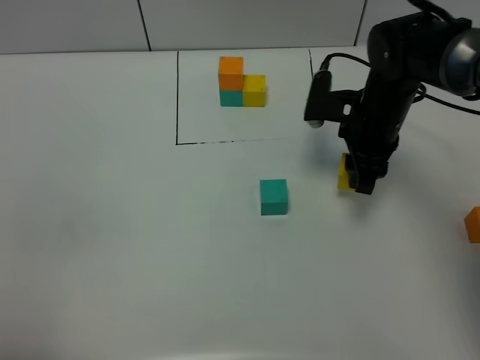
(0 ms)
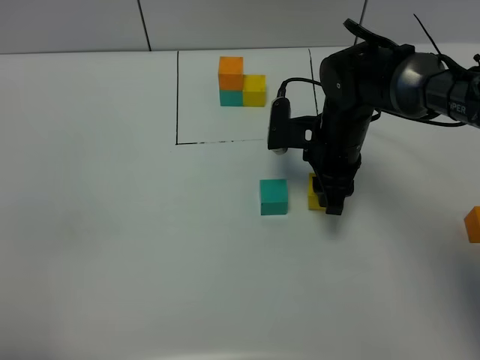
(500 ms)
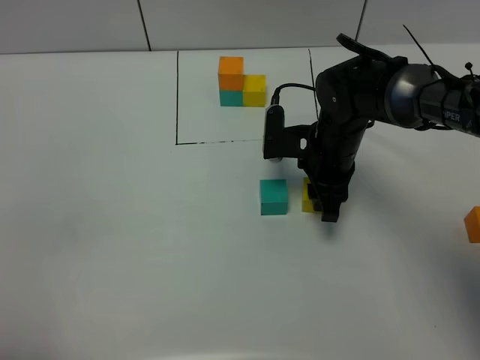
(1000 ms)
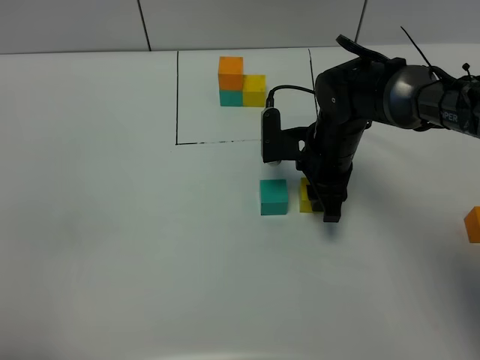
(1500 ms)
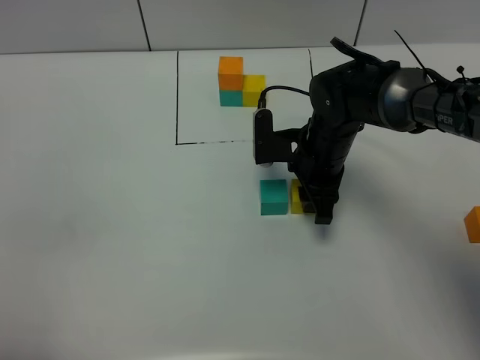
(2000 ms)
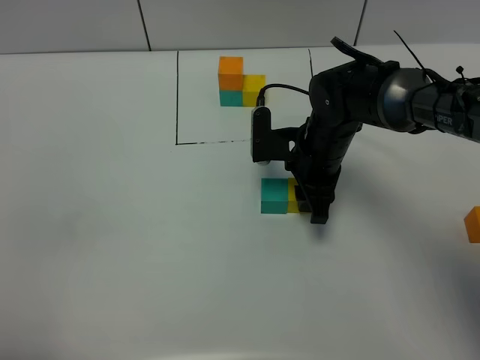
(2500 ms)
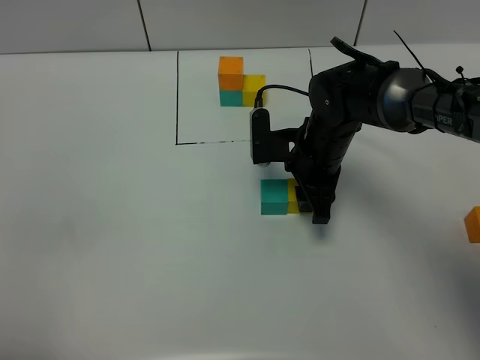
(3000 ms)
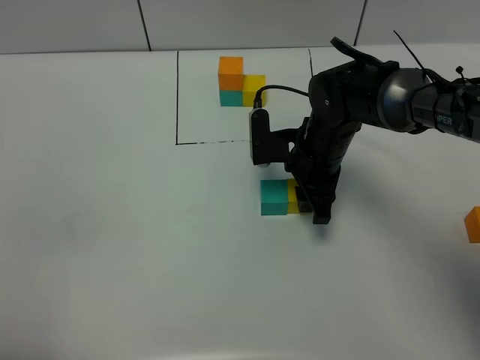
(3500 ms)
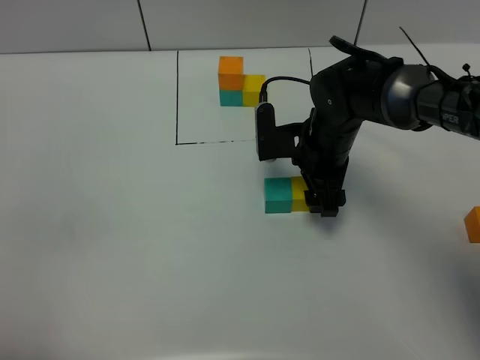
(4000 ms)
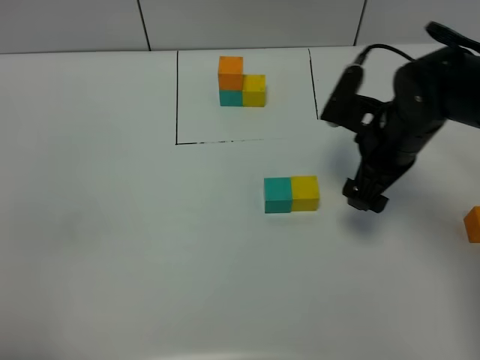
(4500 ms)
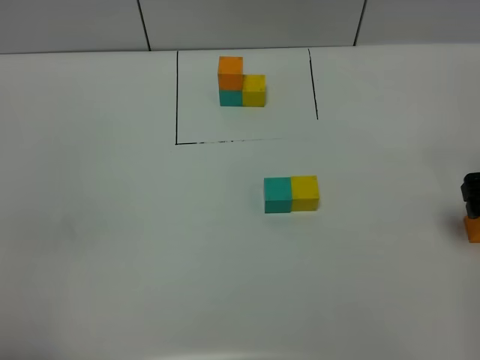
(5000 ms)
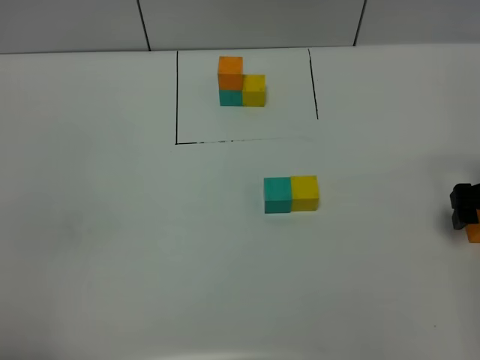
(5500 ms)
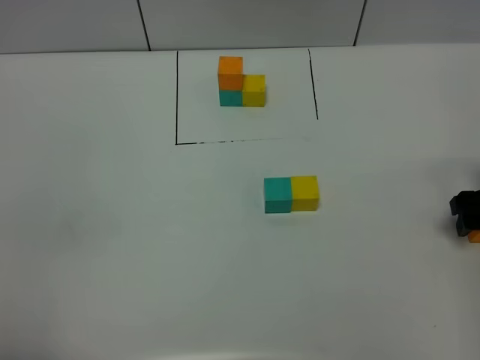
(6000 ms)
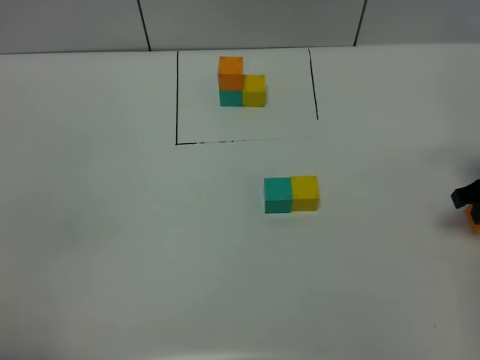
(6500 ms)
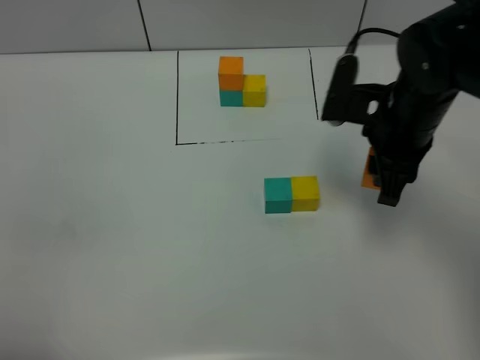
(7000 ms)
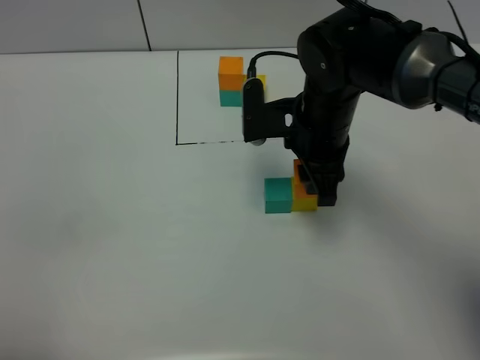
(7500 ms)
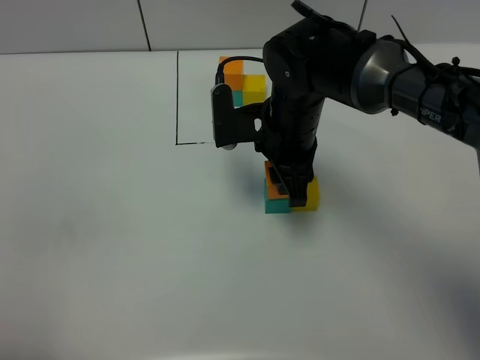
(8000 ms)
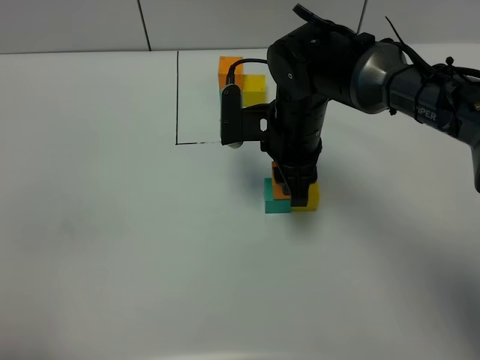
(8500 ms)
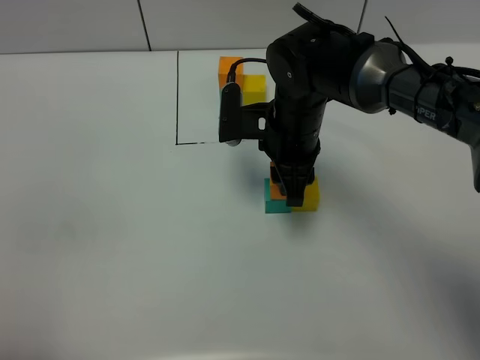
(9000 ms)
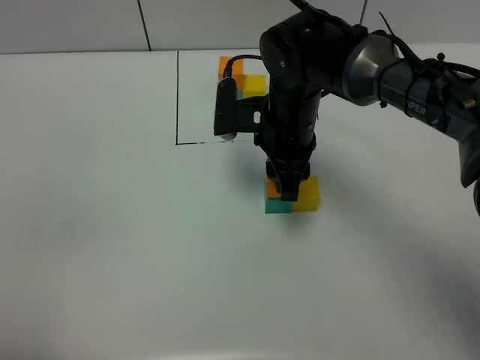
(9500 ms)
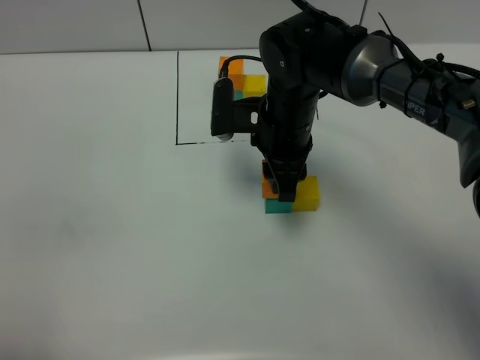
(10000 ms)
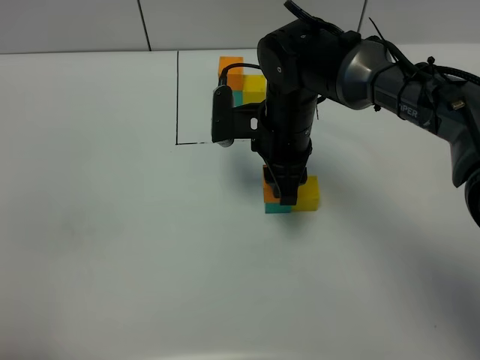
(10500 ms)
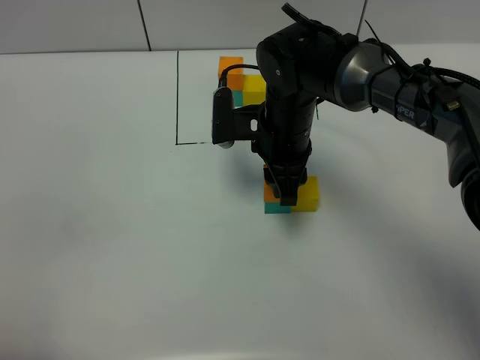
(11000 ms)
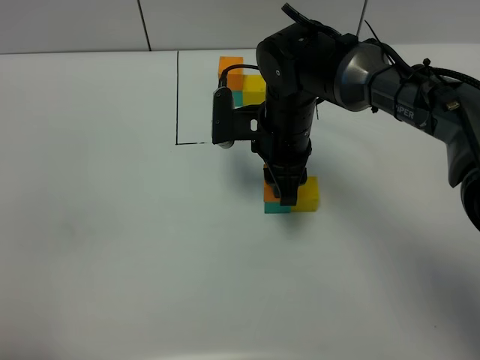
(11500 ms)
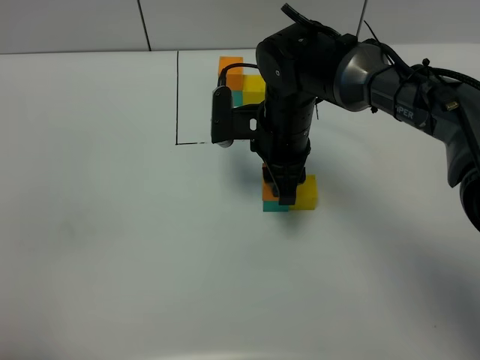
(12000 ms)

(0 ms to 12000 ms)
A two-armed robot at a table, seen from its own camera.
Task of the whole recording: According to the building block template in front, assemble the scattered blocks together.
Step, 0 ms - 4000 ms: Put the yellow build block on the right of the green build block.
0 ms - 2000 ms: The right gripper moves to the left, roughly 5 cm.
2000 ms - 4000 ms: The right gripper opens its fingers.
4000 ms - 6000 ms: The right gripper is displaced to the right by about 25 cm.
6000 ms - 8000 ms: The right gripper heads to the left, covering some 30 cm, and closes.
8000 ms - 12000 ms: The grippers move only a little.

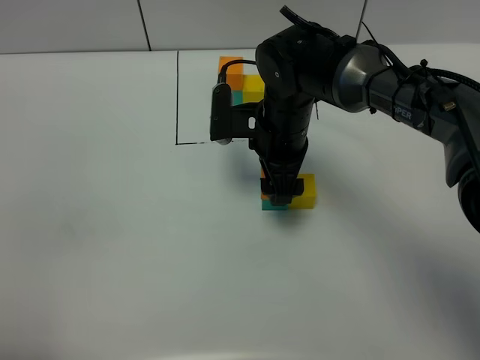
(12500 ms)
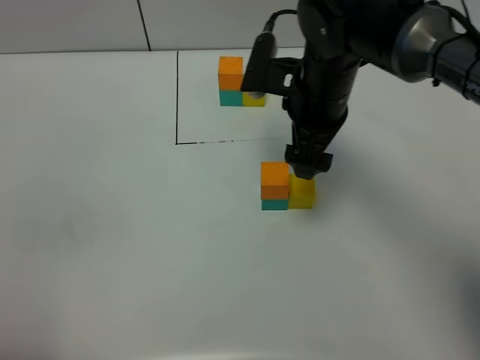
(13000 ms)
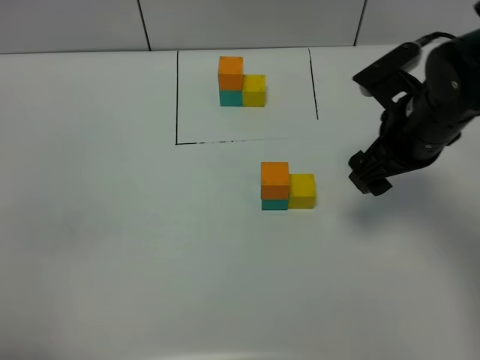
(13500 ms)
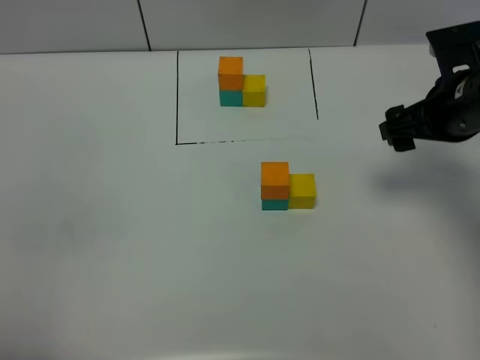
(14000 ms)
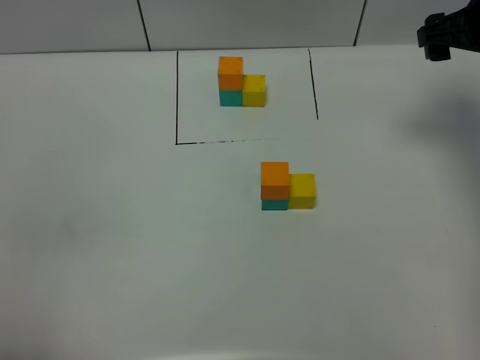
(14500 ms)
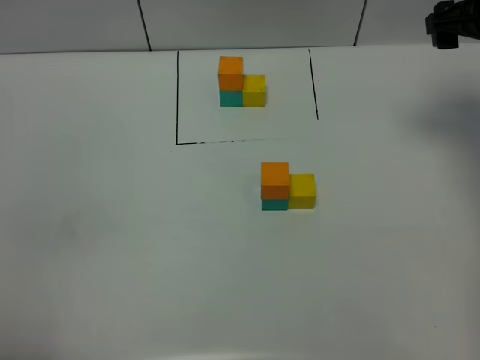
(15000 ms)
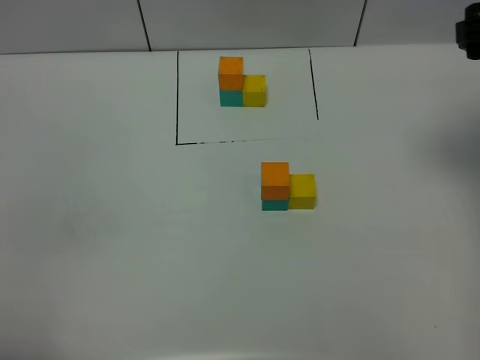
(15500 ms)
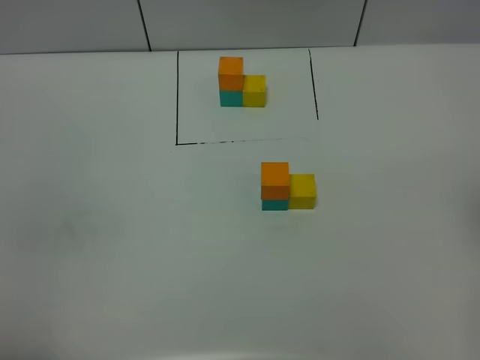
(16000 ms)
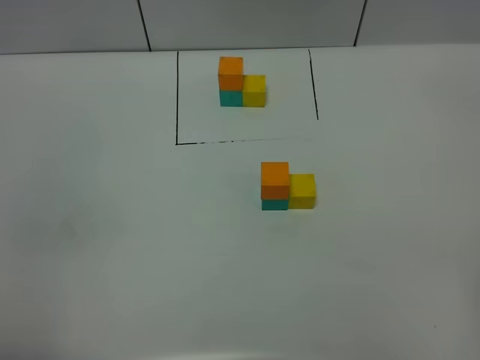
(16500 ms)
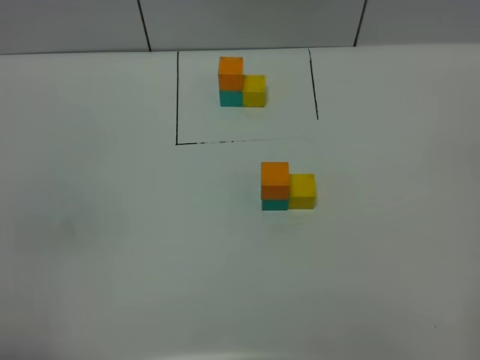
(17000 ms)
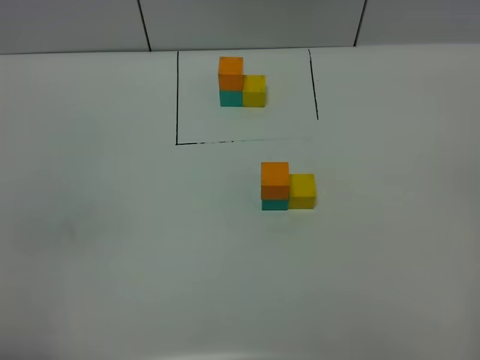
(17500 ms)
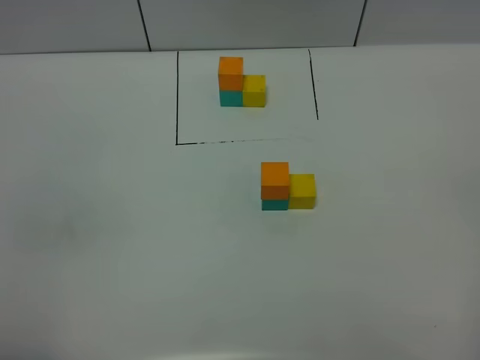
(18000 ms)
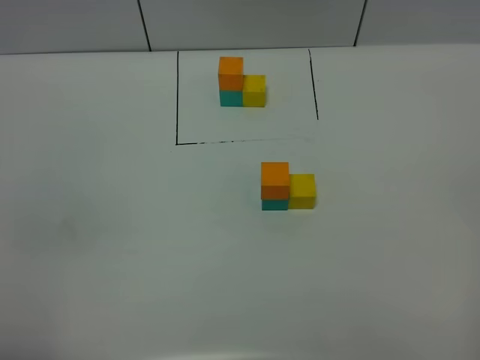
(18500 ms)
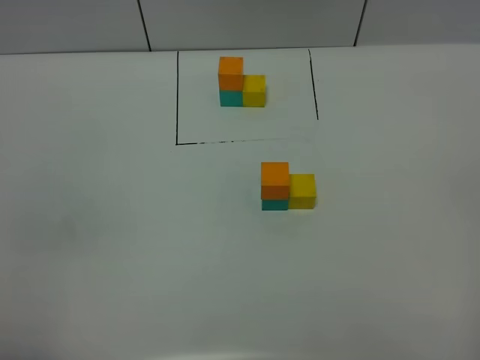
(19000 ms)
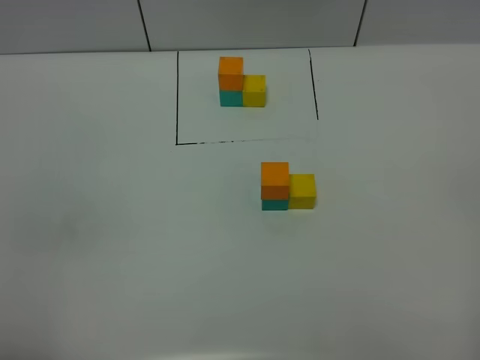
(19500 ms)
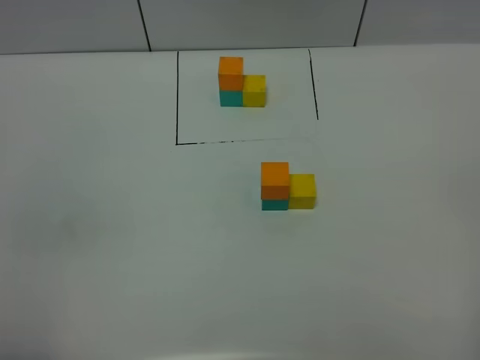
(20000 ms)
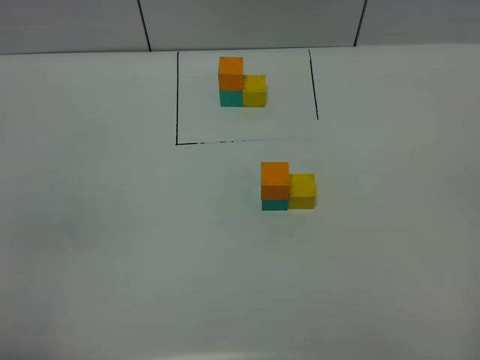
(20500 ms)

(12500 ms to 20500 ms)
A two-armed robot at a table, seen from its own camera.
Task of the whole recording: According to the building block template in front, assemble the scattered blocks together.
12500 ms - 14500 ms: The right gripper heads to the right and upward, covering about 25 cm.
14500 ms - 16500 ms: The right gripper travels backward by approximately 35 cm.
18500 ms - 20500 ms: Neither gripper changes place.

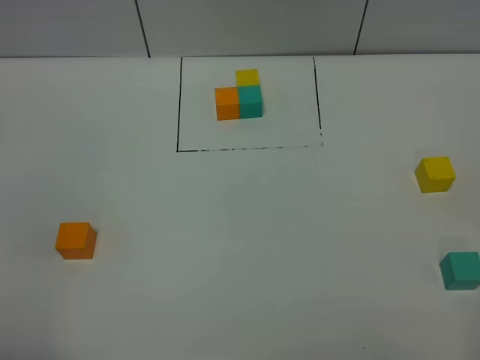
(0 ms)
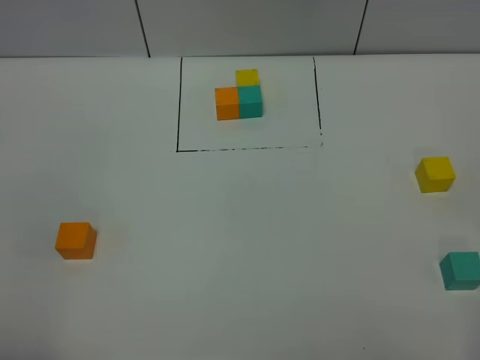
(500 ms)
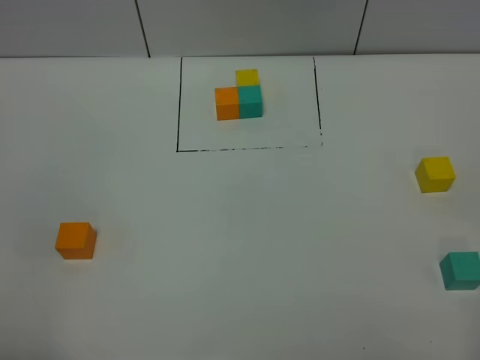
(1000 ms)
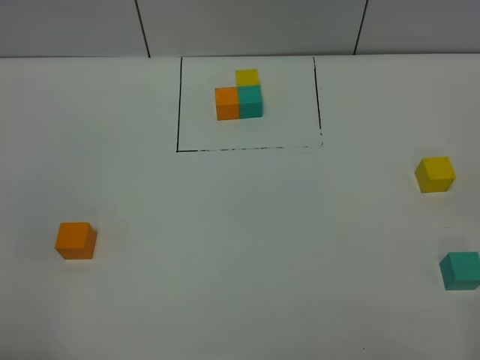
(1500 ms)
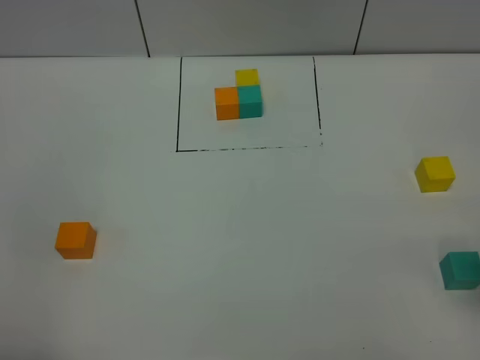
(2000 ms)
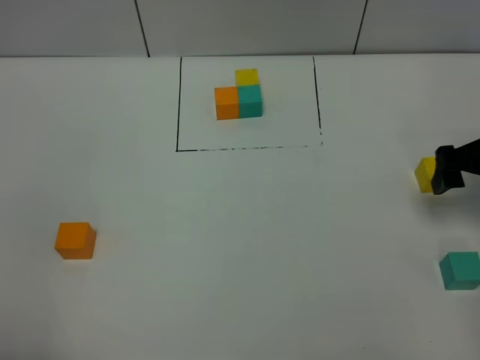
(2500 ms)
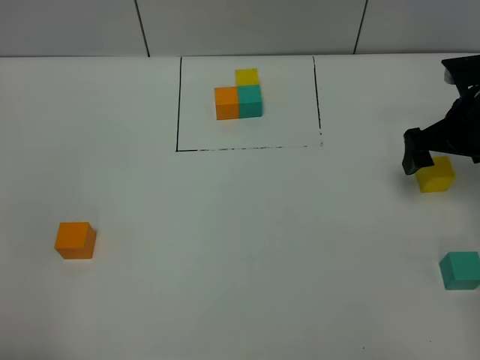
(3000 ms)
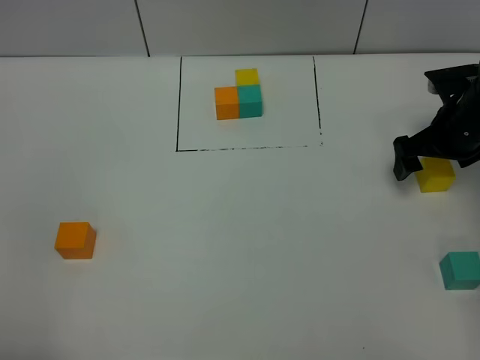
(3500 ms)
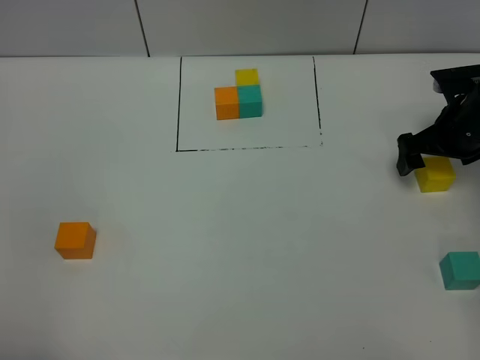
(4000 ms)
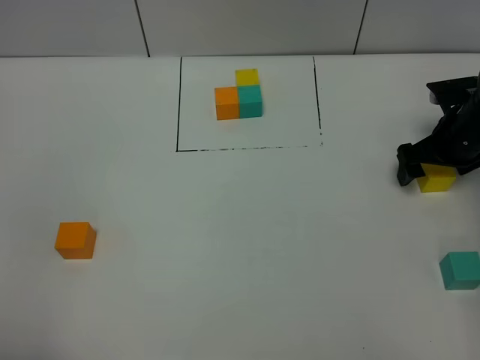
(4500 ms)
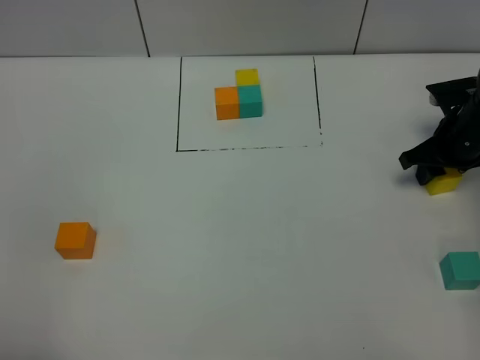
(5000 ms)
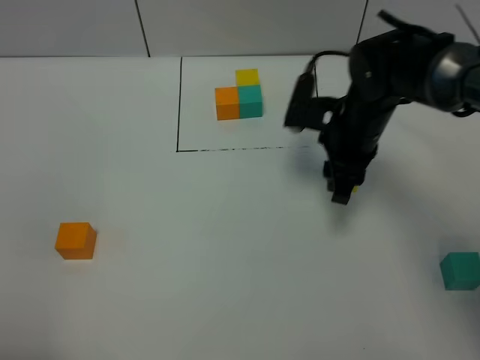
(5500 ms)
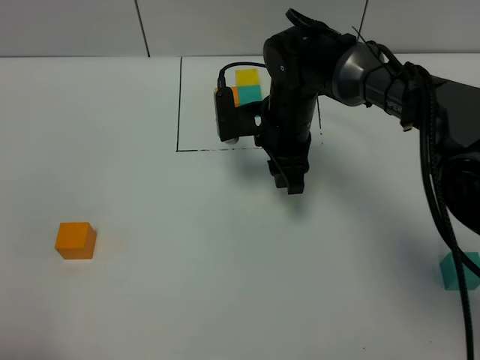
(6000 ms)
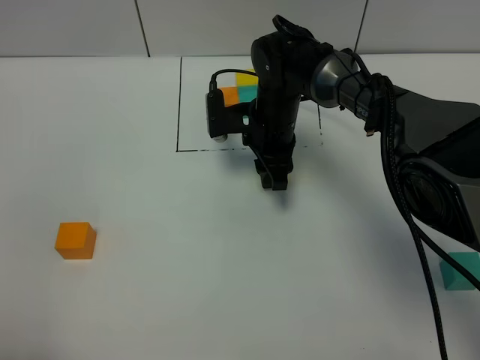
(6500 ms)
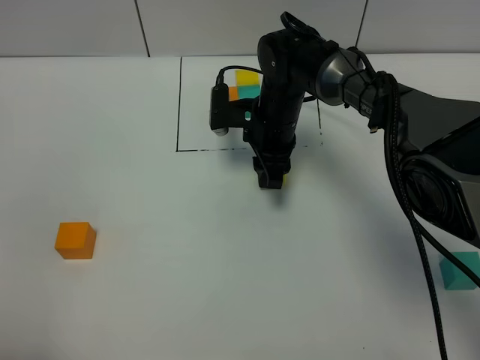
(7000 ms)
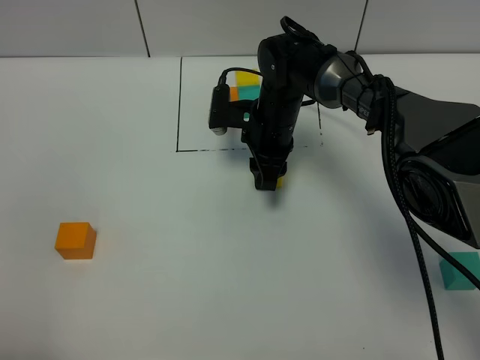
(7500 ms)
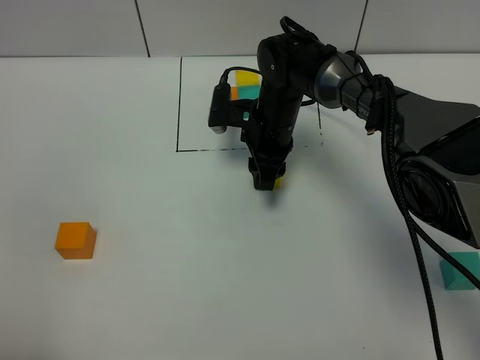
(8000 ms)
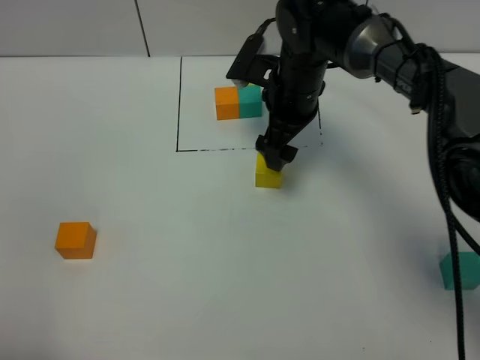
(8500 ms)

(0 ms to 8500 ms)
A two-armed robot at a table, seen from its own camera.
Task of the whole recording: According to the building block template in front, assemble the scattered blocks together.
Step, 0 ms - 8000 ms: Put the yellow build block in the center of the table.
2000 ms - 4000 ms: The right gripper goes approximately 30 cm forward and downward.
4000 ms - 6500 ms: The right gripper moves to the left, roughly 25 cm, and closes its fingers.
6500 ms - 8500 ms: The right gripper goes approximately 5 cm upward, and opens up.
